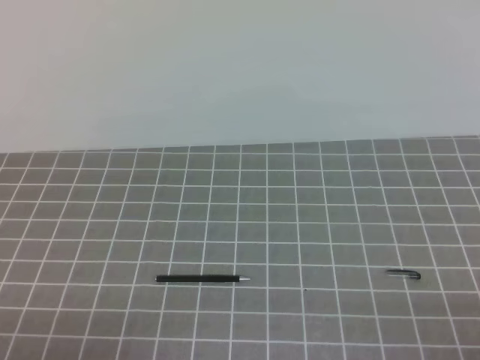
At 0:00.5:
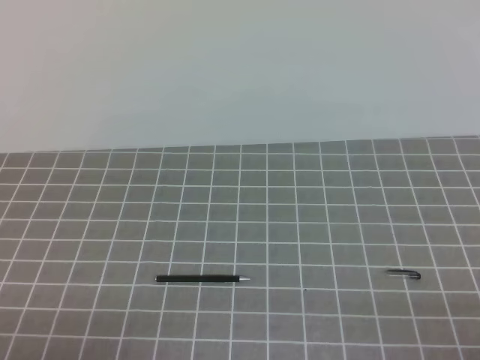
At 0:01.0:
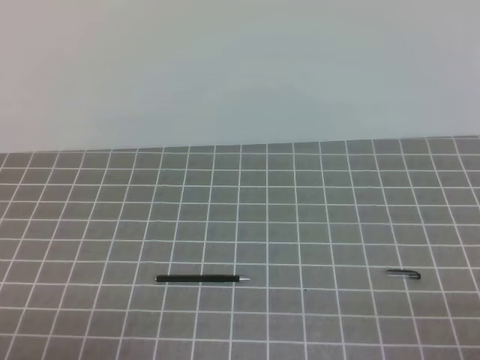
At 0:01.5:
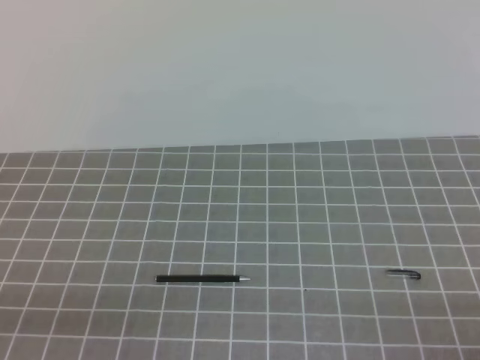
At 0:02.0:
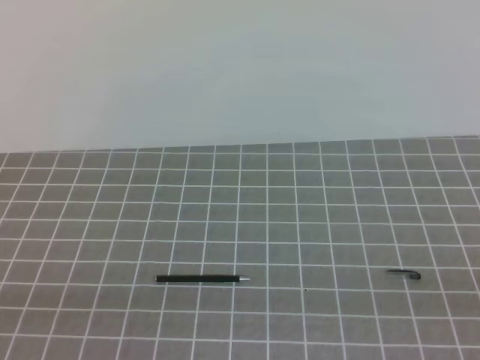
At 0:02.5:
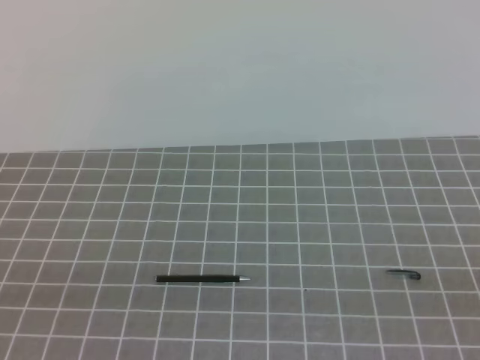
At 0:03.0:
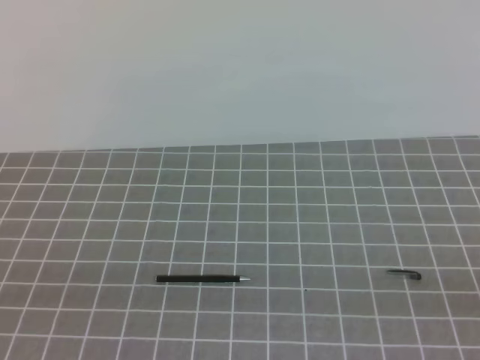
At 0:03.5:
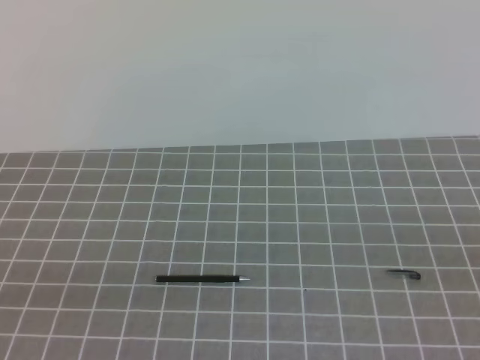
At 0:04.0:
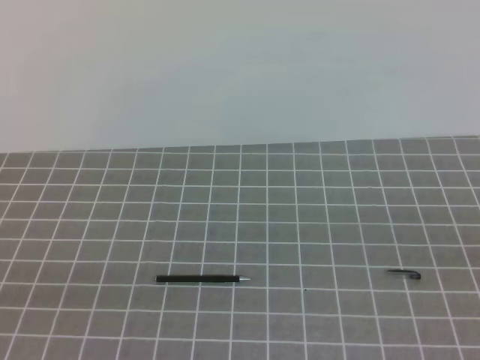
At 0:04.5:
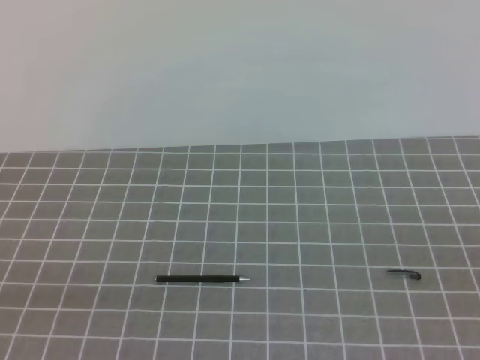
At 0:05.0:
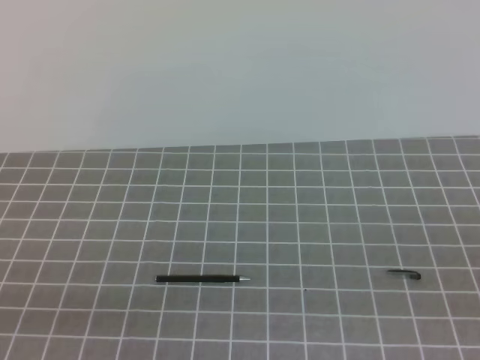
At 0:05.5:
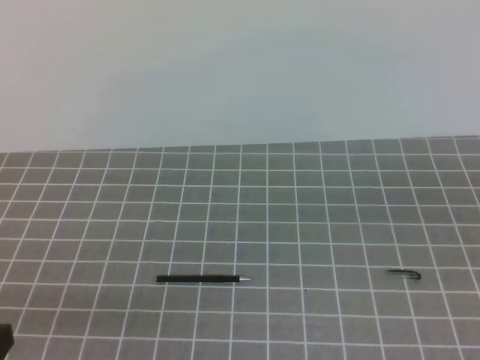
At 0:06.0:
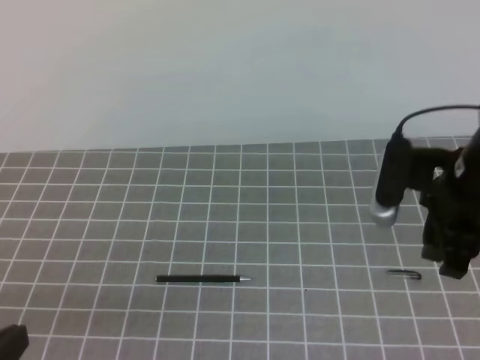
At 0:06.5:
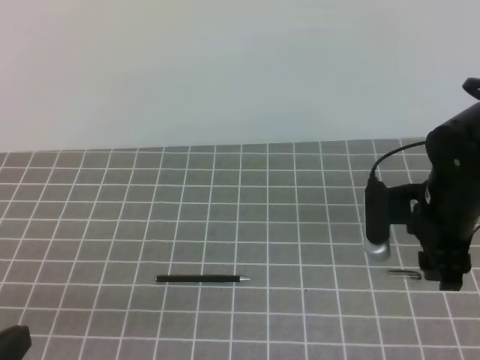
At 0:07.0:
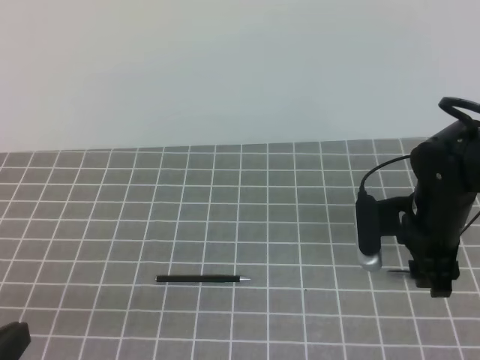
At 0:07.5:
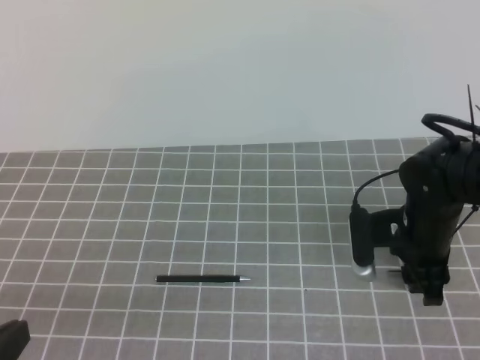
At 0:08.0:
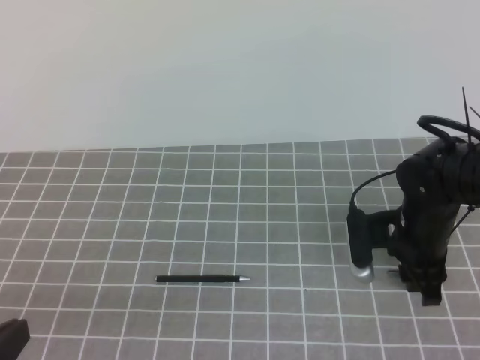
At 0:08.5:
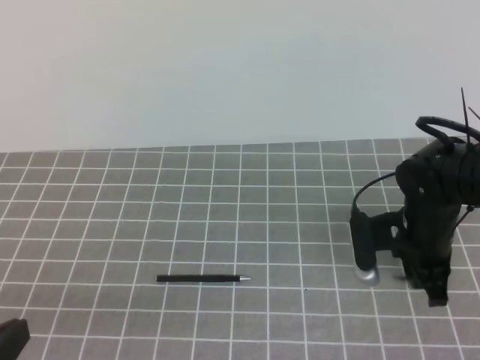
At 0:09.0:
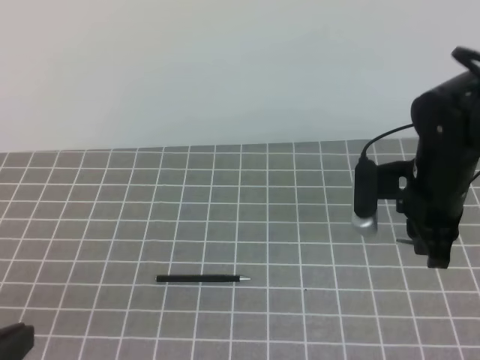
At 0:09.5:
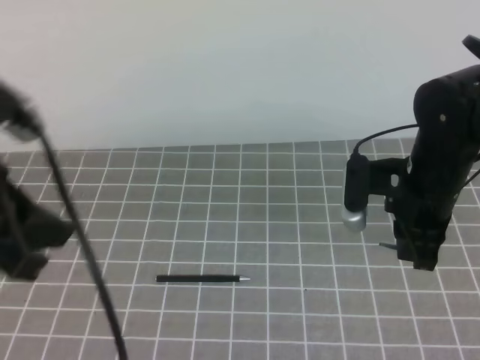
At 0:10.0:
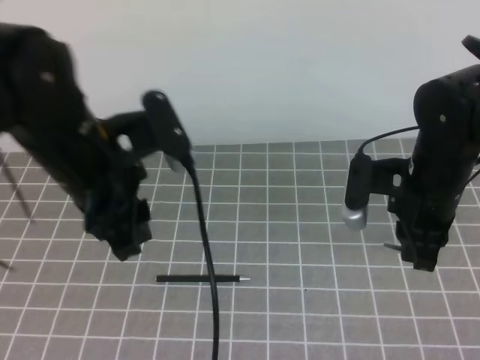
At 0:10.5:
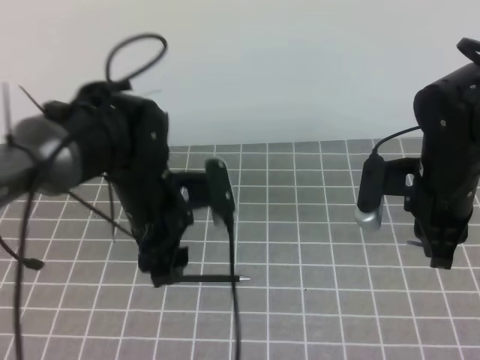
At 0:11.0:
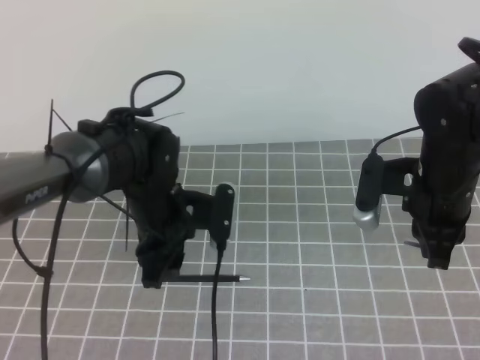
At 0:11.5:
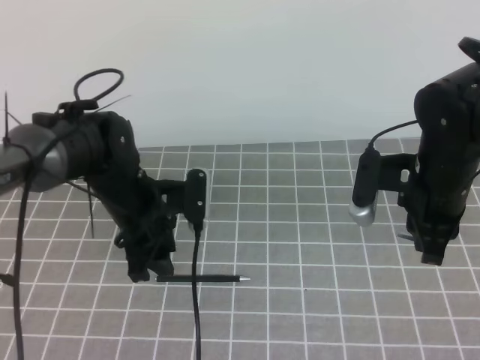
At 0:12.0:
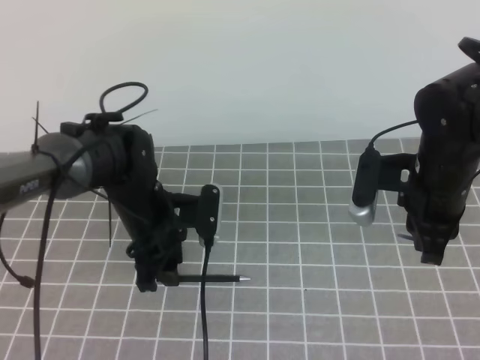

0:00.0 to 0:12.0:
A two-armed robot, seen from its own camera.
Task of the whole recording: on the grey tablecloth, hold the pen cap in one hand and the pen in the other, then cover the pen cap.
0:04.0 to 0:06.0: The right gripper is displaced forward and to the left by approximately 25 cm, and opens.
0:06.0 to 0:08.0: The right gripper heads downward and forward, covering about 15 cm, and opens, then closes again.
0:08.0 to 0:10.0: The right gripper shifts about 10 cm upward, and closes its fingers, while the left gripper travels forward and to the right by roughly 20 cm, and opens its fingers.
0:10.0 to 0:12.0: The left gripper goes approximately 20 cm downward and forward.

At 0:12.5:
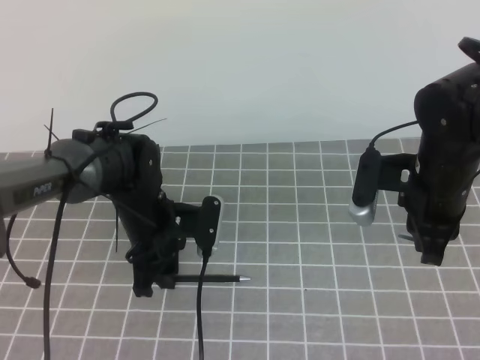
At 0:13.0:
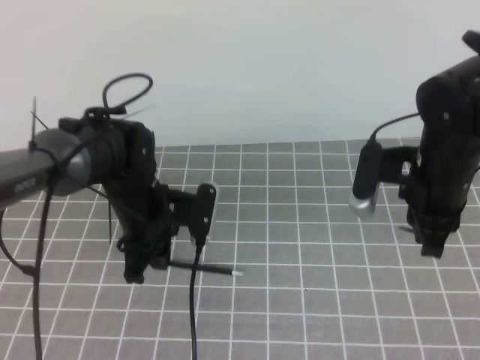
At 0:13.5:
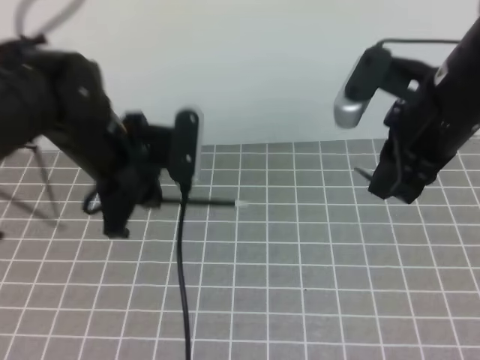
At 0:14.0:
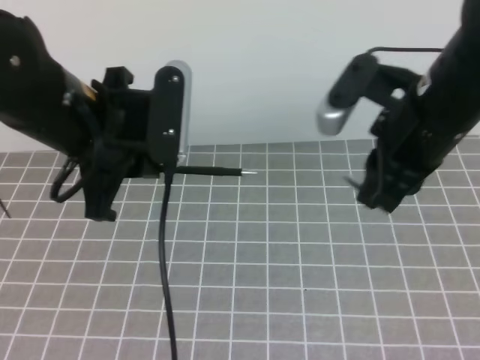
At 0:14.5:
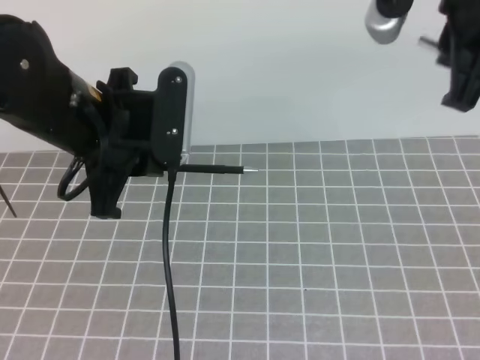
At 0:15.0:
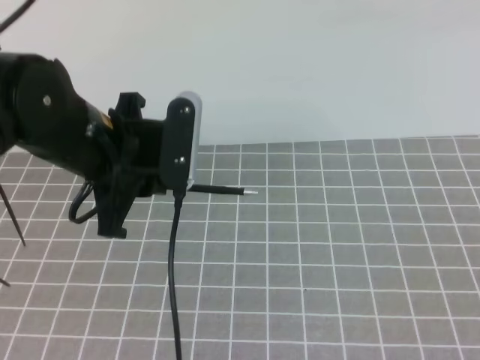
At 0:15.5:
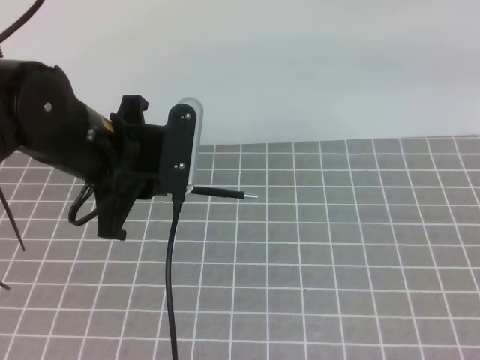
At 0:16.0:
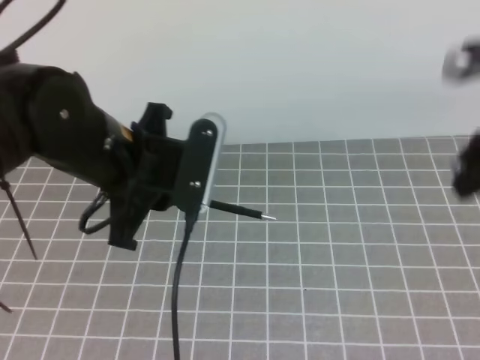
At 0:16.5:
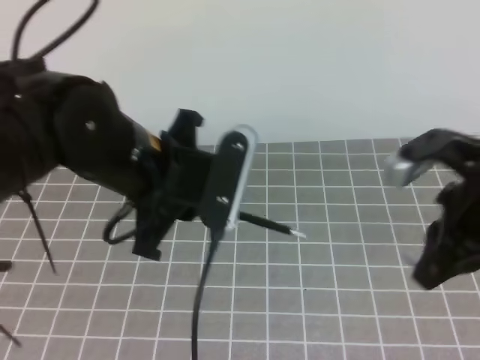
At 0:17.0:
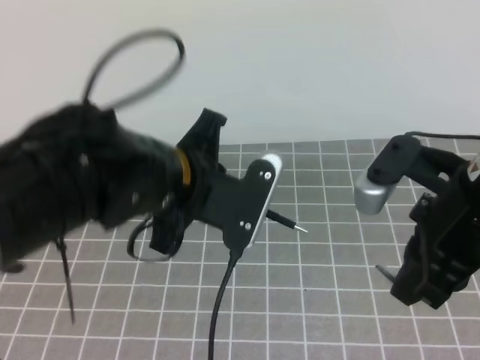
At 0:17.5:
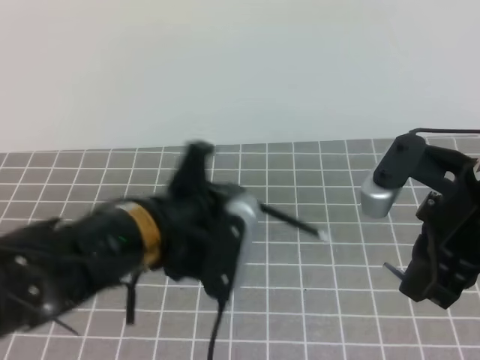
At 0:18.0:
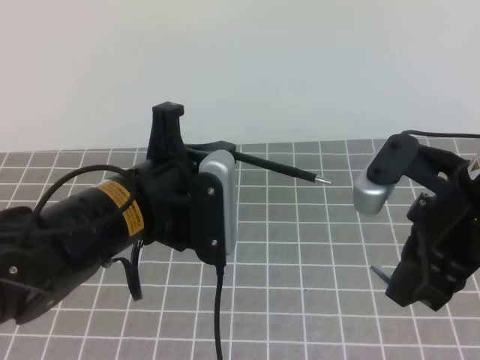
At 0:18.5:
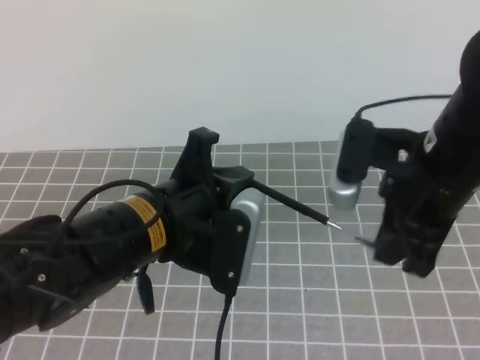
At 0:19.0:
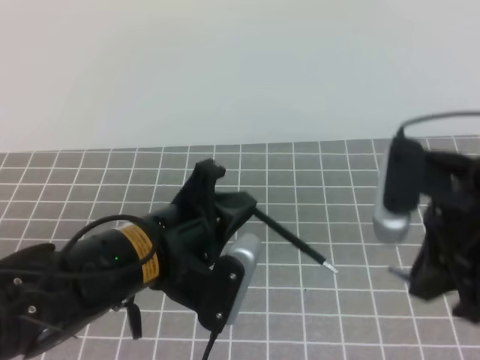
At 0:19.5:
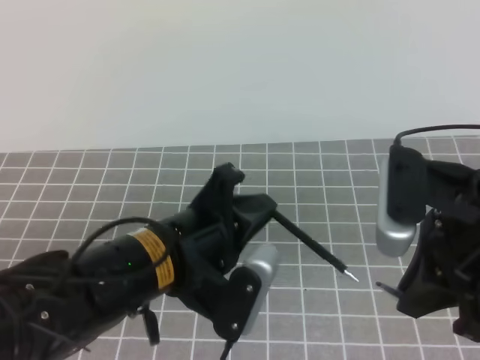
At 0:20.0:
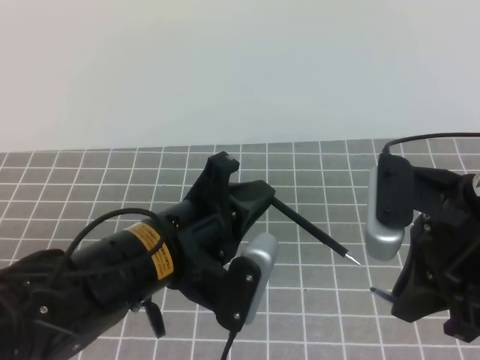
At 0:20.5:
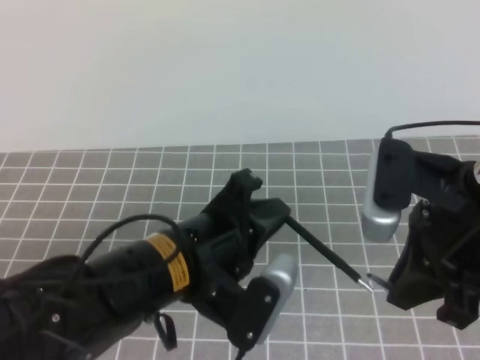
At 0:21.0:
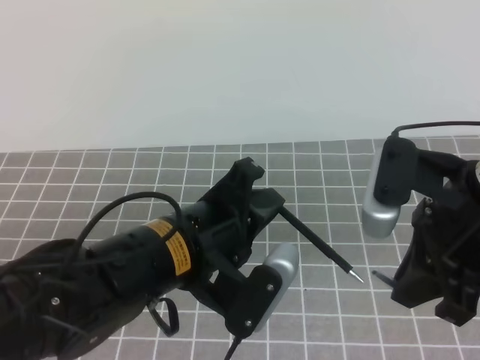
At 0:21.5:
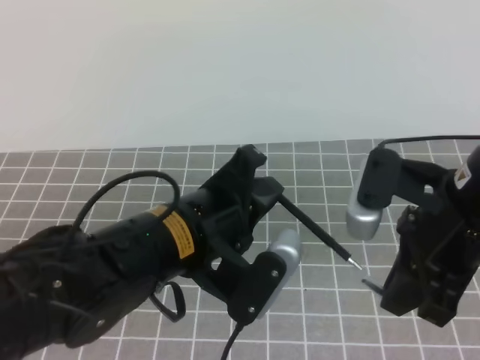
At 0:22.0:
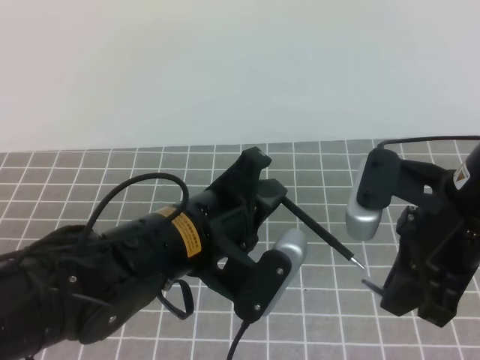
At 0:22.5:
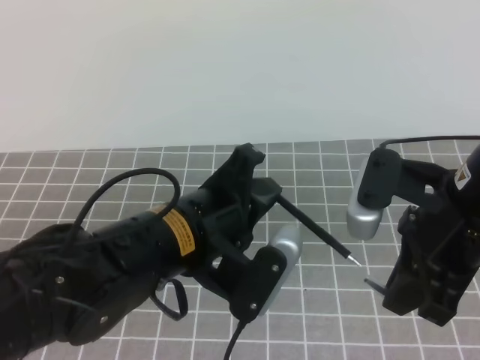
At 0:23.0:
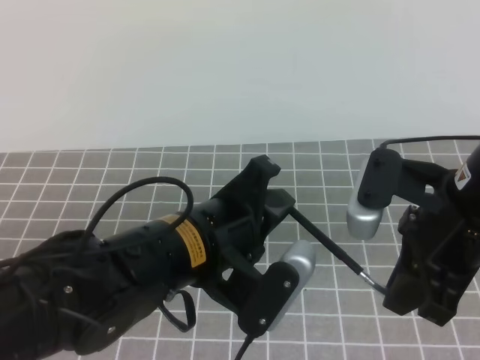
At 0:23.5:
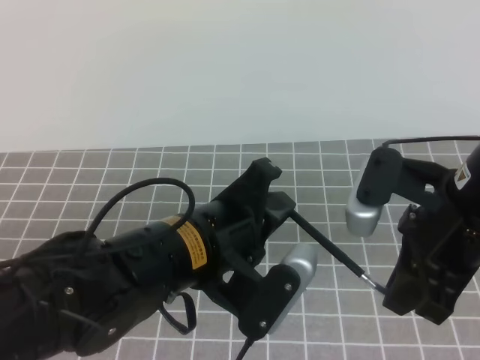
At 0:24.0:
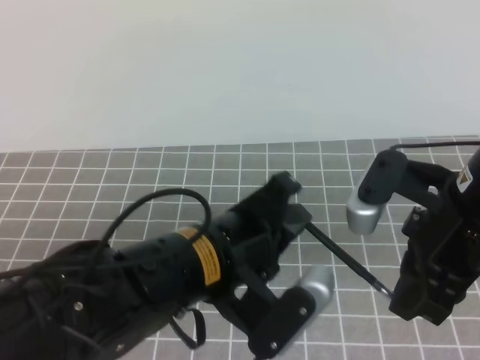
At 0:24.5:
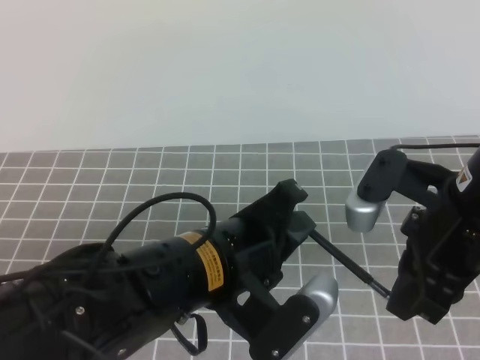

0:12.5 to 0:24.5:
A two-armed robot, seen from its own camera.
Task of the whole recording: on the grey tablecloth, hold the pen cap in one hand and the pen in the other, then cover the pen cap.
0:12.5 to 0:14.5: Both grippers travel together upward, about 20 cm.
0:14.5 to 0:16.5: The right gripper goes roughly 15 cm downward. Meanwhile the left gripper changes place by some 5 cm.
0:16.5 to 0:18.5: The right gripper heads to the left, covering approximately 5 cm. The left gripper shifts by some 5 cm.
0:20.5 to 0:24.5: There are only small adjustments of the grippers.

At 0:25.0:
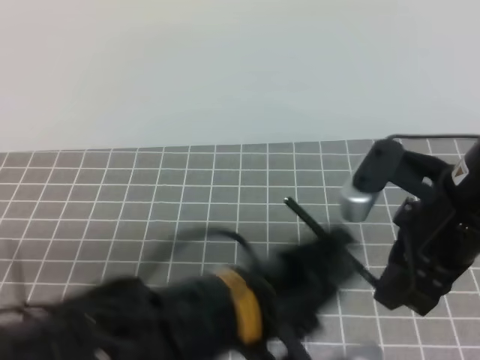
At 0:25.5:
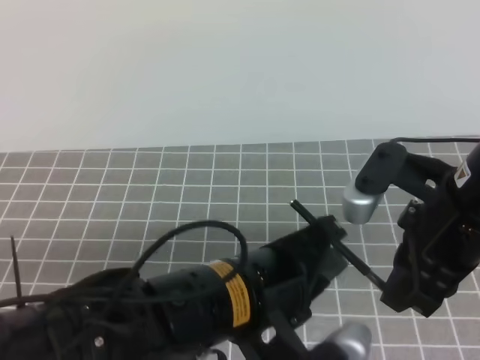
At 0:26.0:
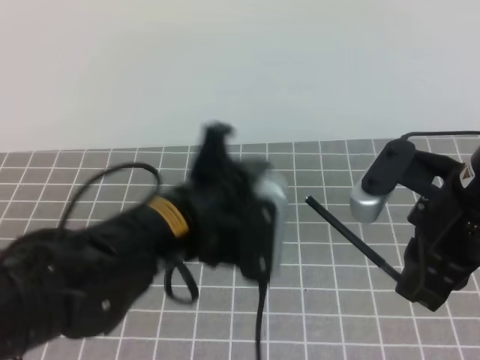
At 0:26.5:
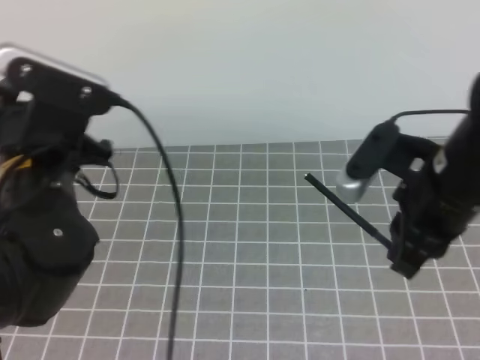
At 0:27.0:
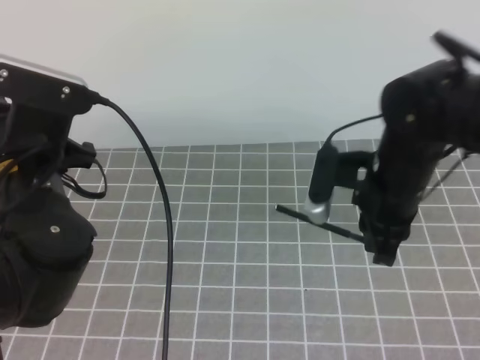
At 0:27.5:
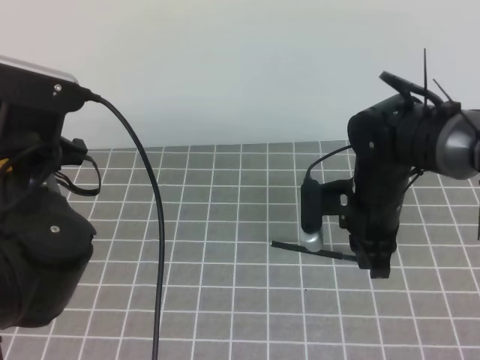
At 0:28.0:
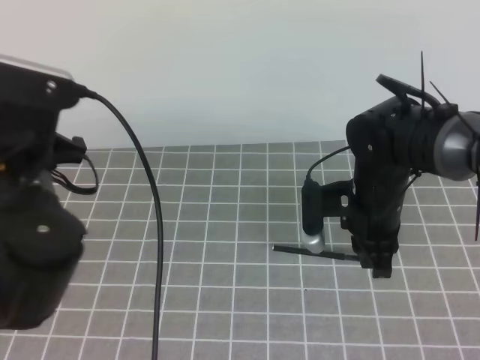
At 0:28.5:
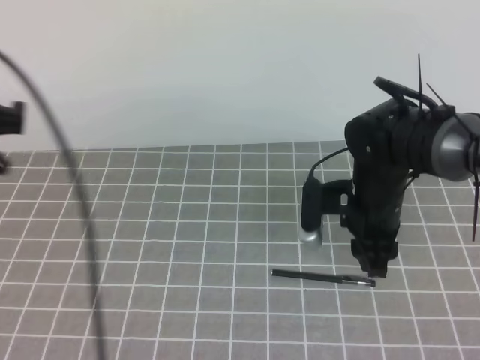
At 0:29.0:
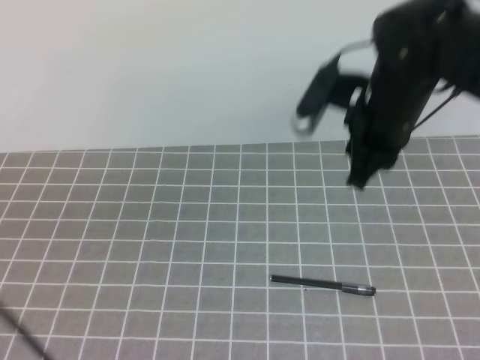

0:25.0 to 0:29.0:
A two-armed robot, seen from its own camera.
Task of the whole recording: on the grey tablecloth, hold the pen cap in one hand and the pen in the other, then cover the pen cap.
0:25.0 to 0:27.0: The left gripper is displaced to the left and forward by some 20 cm, and opens, then closes once more, while the right gripper shifts about 10 cm forward and downward.
0:27.0 to 0:29.0: The right gripper goes approximately 5 cm upward, while the left gripper travels backward and to the left by approximately 15 cm.
